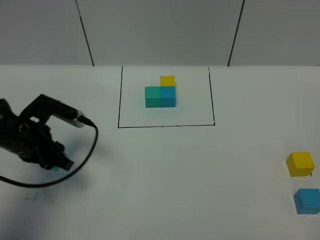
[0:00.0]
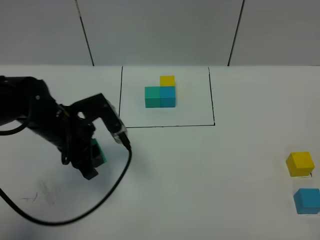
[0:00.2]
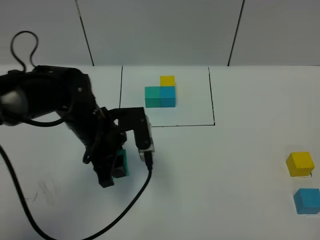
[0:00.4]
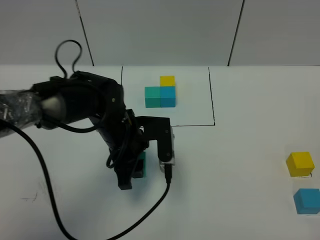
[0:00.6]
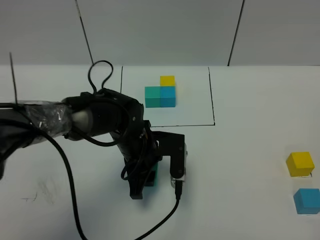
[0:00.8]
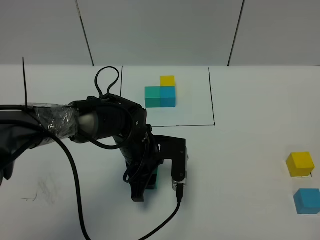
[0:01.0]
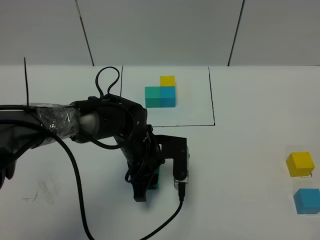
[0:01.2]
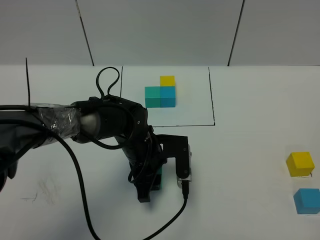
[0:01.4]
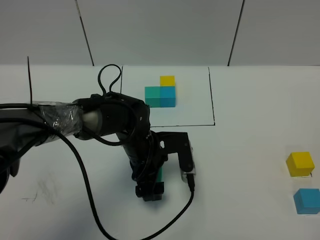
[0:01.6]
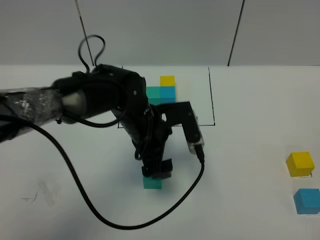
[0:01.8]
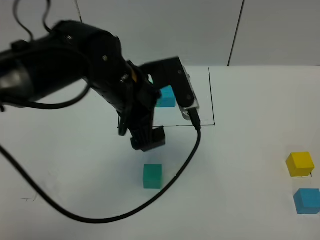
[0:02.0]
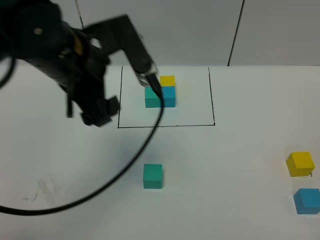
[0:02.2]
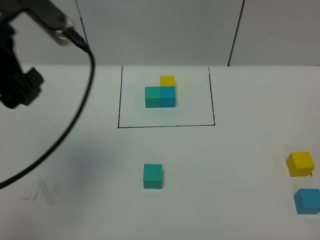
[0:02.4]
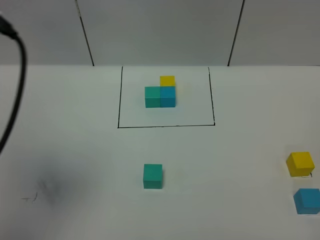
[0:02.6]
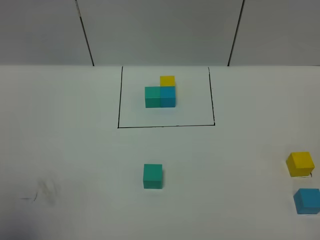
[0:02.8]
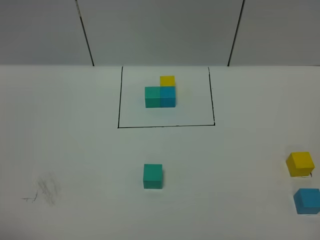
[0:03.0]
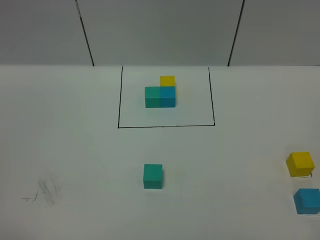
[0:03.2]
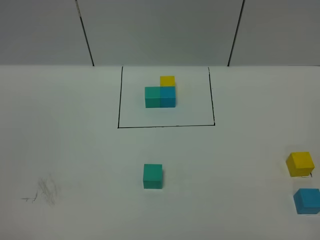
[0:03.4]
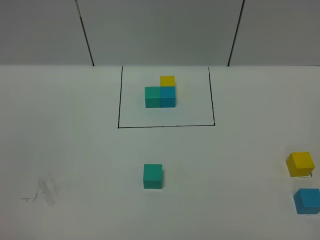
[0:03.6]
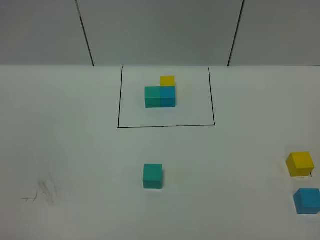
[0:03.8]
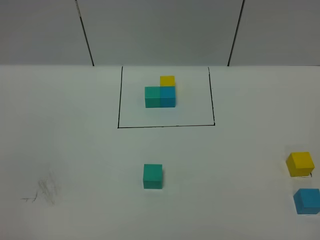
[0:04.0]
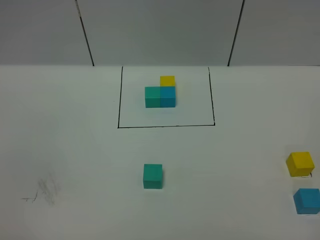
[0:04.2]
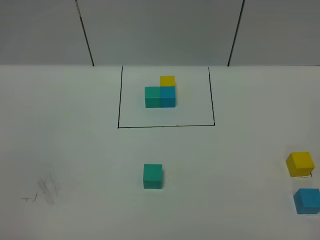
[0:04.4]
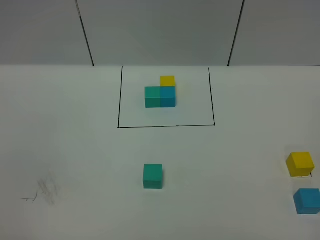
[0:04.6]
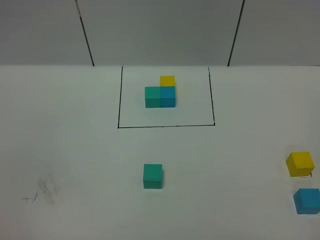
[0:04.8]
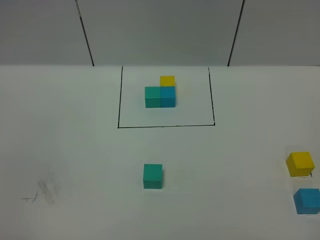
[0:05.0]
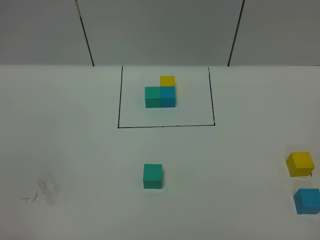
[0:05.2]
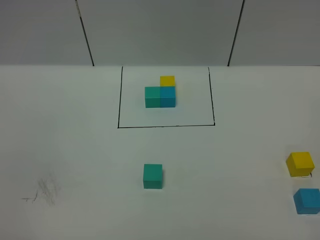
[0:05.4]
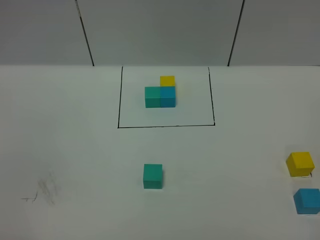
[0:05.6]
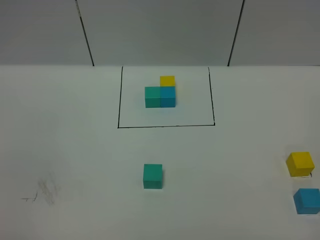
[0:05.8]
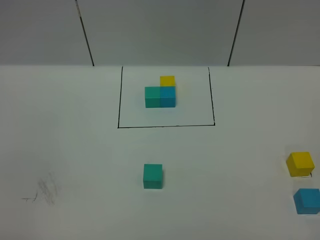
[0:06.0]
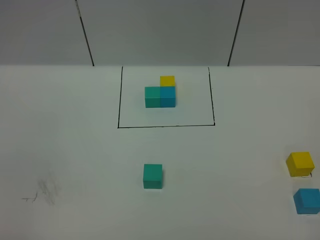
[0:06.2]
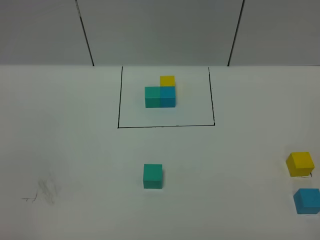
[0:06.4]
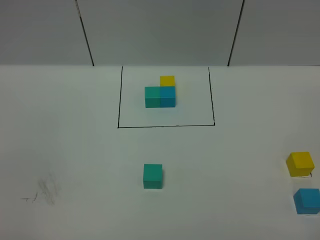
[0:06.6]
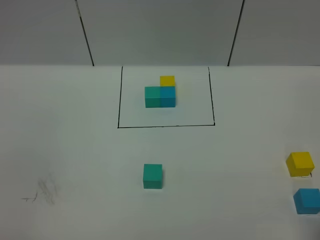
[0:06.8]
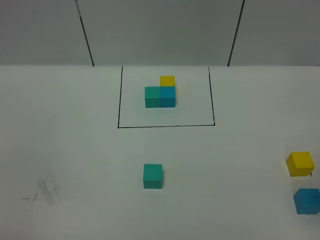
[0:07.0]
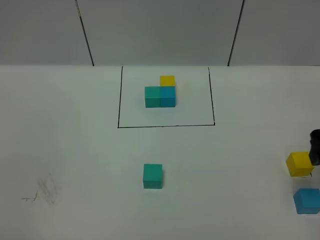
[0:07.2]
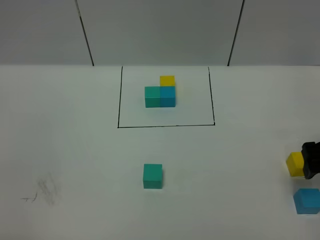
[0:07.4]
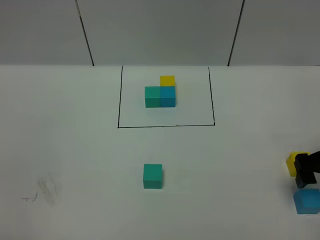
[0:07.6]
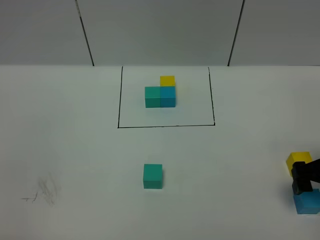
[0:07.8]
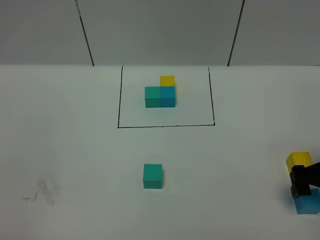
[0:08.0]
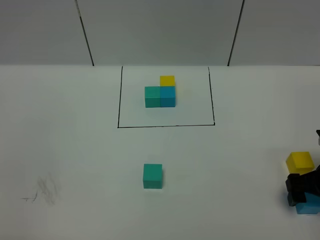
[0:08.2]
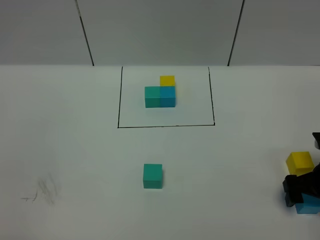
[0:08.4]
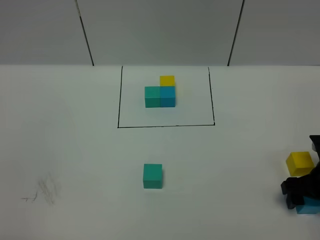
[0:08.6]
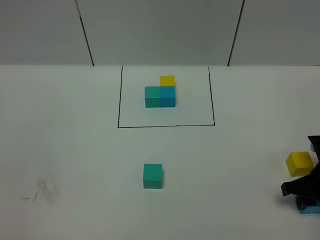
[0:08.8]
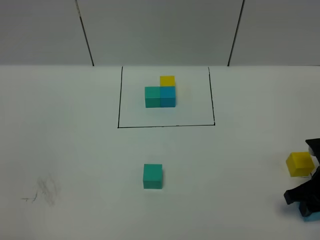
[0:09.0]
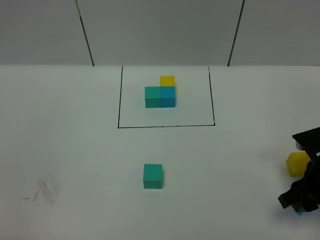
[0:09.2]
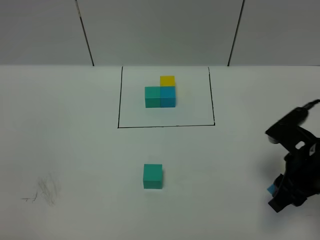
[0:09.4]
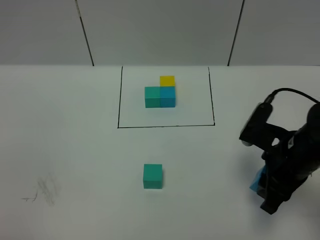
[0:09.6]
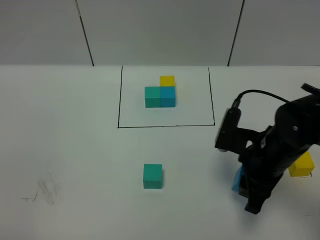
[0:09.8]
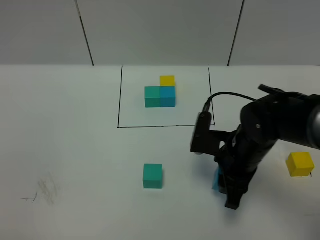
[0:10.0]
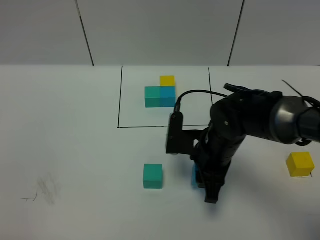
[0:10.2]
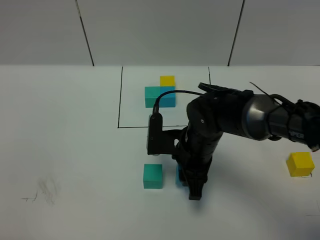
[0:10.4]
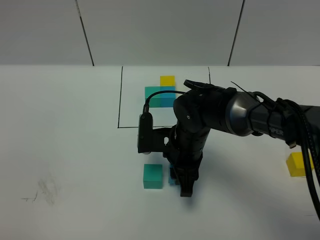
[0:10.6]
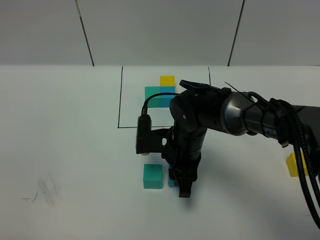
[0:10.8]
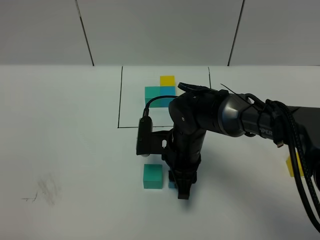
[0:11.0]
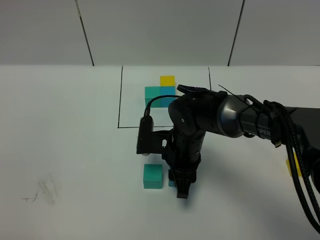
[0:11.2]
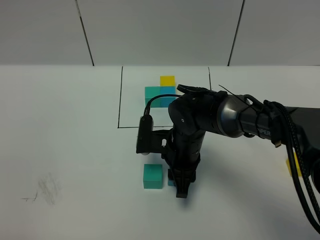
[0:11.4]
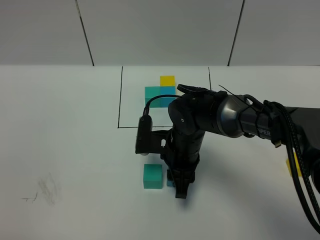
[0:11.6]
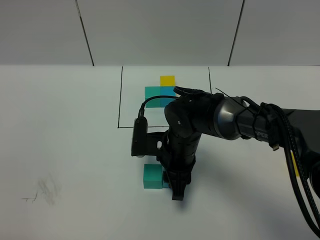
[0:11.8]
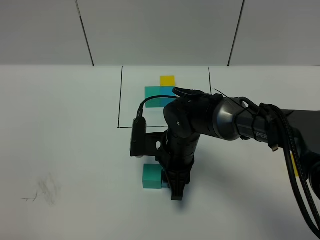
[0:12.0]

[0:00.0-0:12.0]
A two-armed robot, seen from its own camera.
Task of the whole recording: According to the building block template in front, assemble the scattered blocks together.
0:00.0 to 0:01.6: The left gripper moves to the right, about 20 cm, and opens.
0:01.6 to 0:03.0: The left gripper is displaced upward, backward and to the left by approximately 50 cm.
0:06.0 to 0:07.6: The right gripper moves forward, about 25 cm, and opens up.
0:07.6 to 0:09.0: The right gripper heads downward, covering approximately 5 cm, and closes up.
0:09.0 to 0:10.4: The right gripper shifts roughly 25 cm to the left.
0:10.4 to 0:12.0: There are only small adjustments of the grippers.

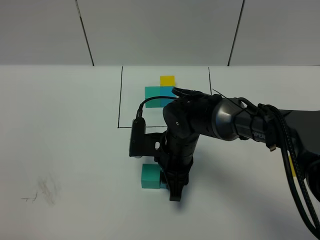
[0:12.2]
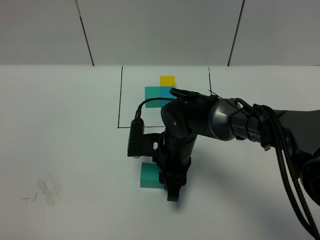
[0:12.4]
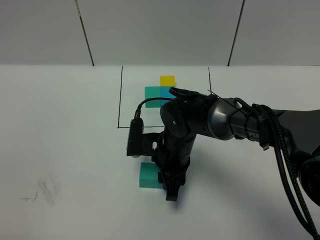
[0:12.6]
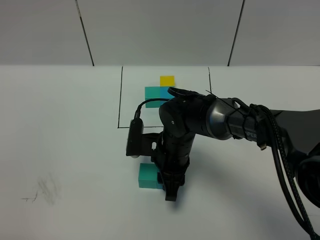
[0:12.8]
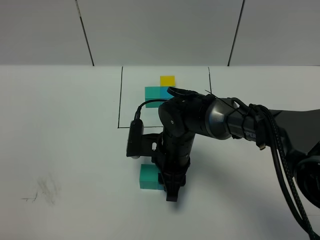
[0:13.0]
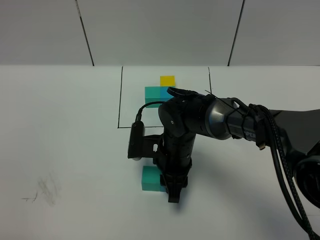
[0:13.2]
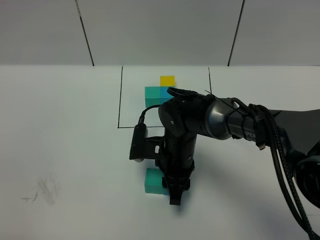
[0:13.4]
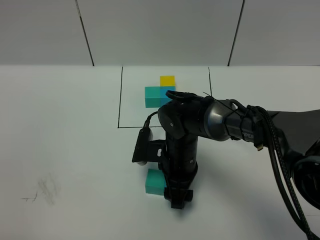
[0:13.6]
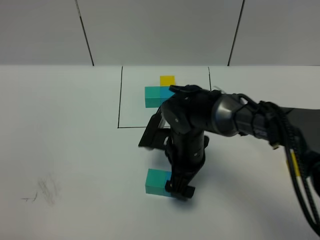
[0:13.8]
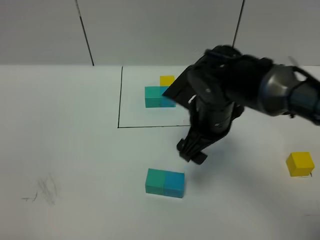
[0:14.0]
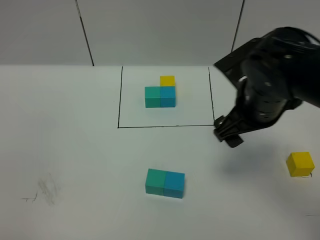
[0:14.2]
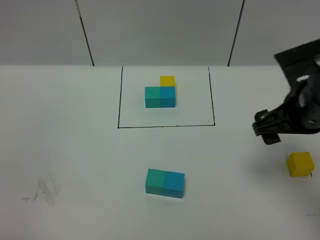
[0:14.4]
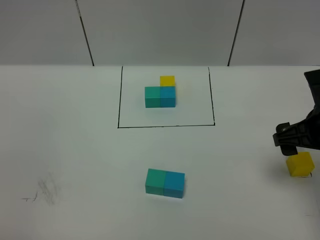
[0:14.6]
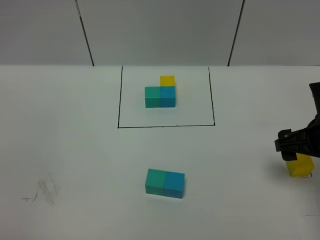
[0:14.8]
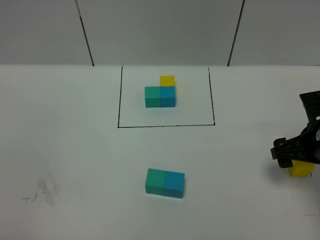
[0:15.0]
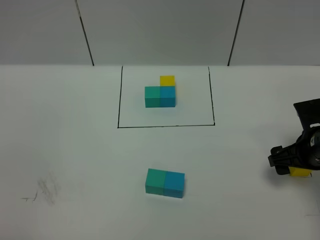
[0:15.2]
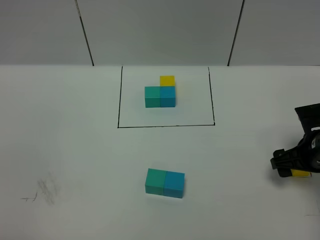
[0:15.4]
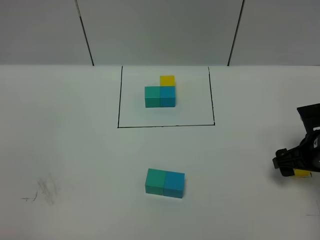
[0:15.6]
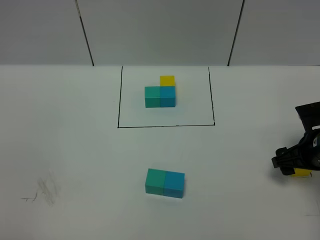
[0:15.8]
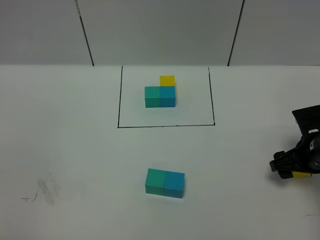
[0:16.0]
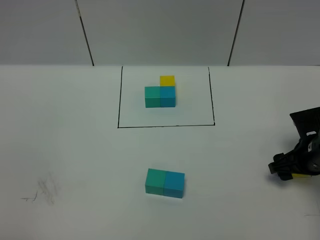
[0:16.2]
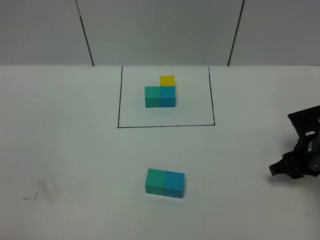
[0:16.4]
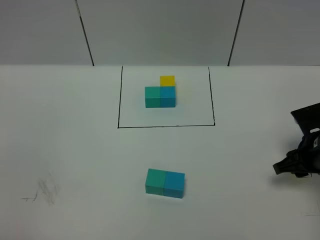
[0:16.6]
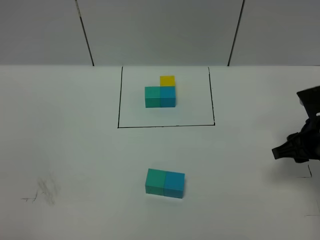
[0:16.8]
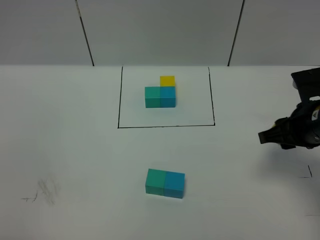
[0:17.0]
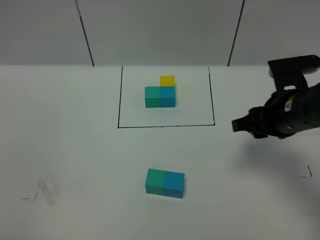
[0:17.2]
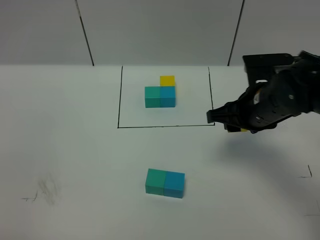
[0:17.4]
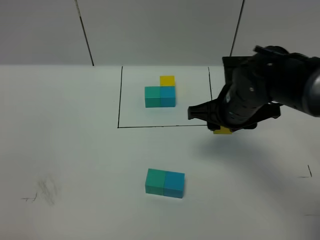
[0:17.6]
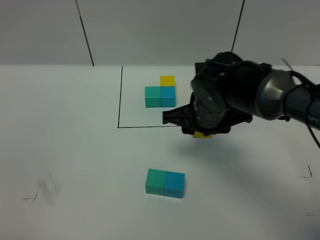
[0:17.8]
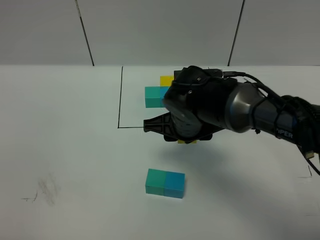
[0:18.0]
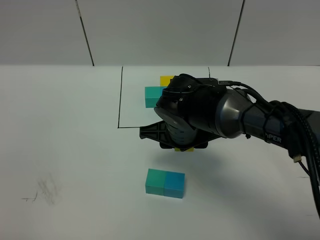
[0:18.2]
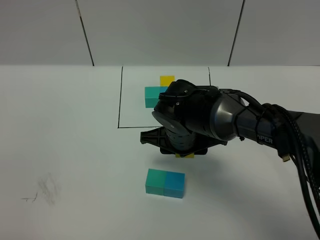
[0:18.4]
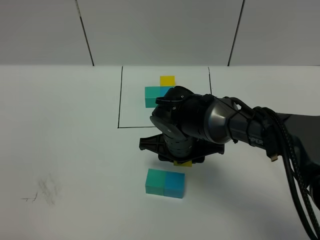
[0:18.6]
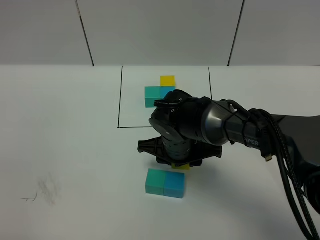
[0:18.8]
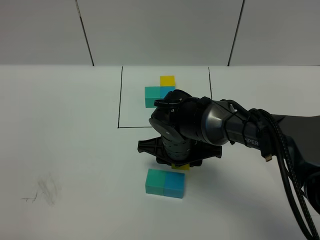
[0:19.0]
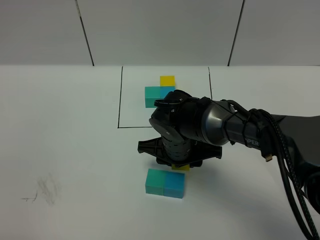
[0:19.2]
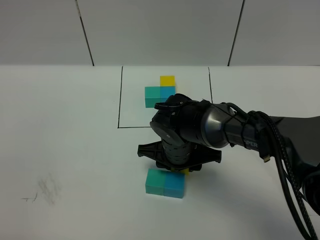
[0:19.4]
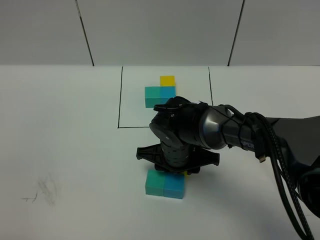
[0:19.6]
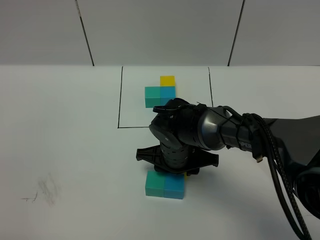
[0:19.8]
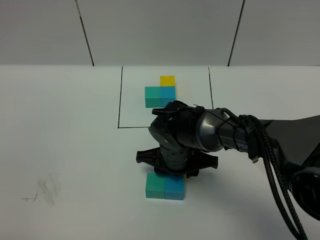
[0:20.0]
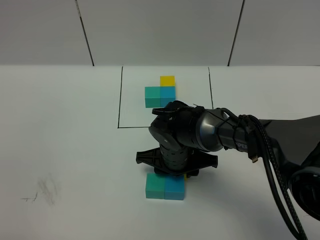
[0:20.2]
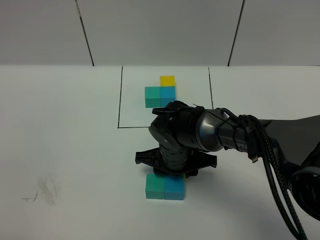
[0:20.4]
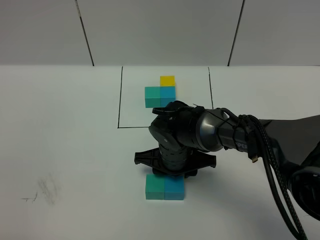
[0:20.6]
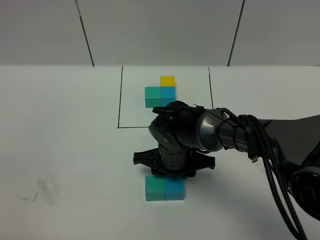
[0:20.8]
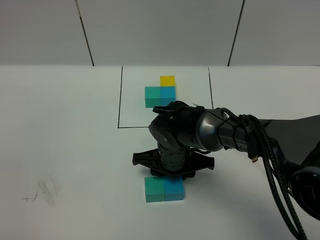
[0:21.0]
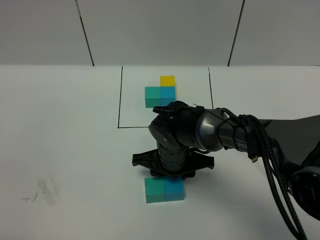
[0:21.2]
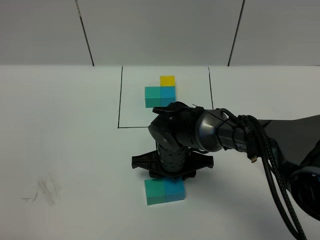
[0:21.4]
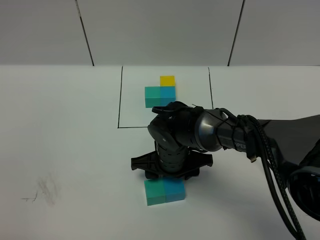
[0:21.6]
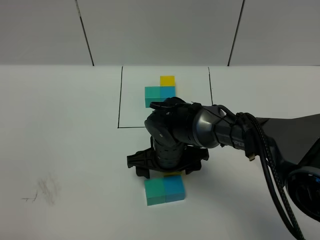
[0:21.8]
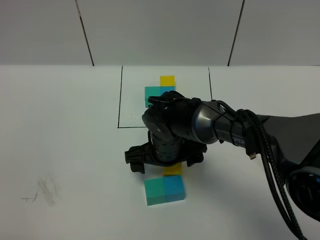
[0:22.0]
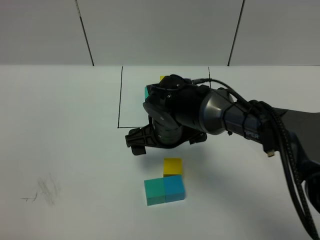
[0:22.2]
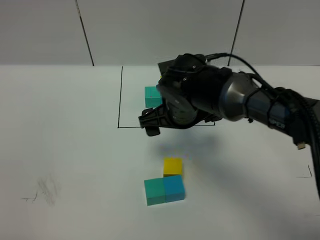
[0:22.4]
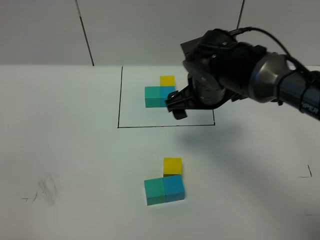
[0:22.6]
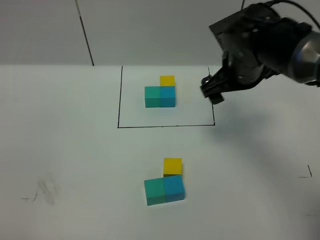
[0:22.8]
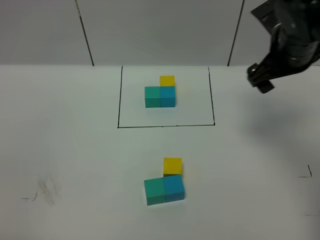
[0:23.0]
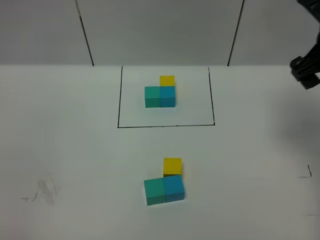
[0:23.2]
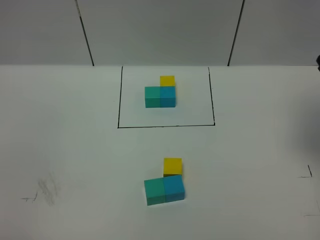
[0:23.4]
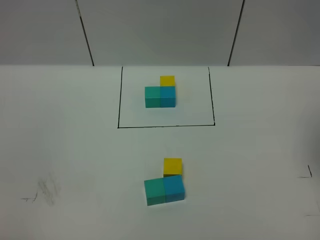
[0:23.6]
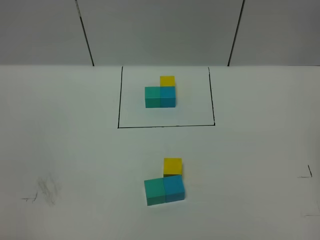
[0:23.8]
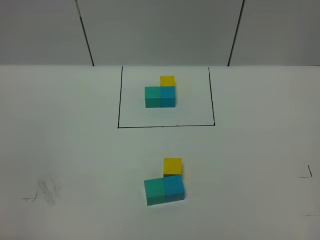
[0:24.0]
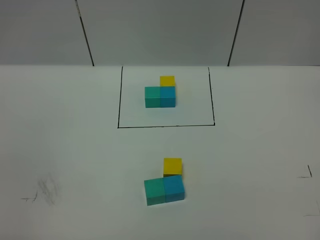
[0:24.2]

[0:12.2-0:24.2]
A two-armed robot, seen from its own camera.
Task of the whole recording: According to the building block template in front, assemble the scattered blocks together.
Step, 0:13.8 to 0:21.8: Put the yellow cube on the behind of the blue cube.
0:12.2 to 0:13.8: The right gripper opens.
0:13.8 to 0:15.2: The right gripper heads to the right, covering roughly 25 cm.
0:15.2 to 0:16.6: The right gripper closes its fingers.
0:16.6 to 0:18.2: The right gripper goes roughly 25 cm to the left.
0:18.2 to 0:19.8: The right gripper heads downward, covering some 5 cm.
0:19.8 to 0:21.2: The grippers stay close to where they were, moving slightly.
0:21.2 to 0:22.6: The right gripper heads upward, to the right and forward, covering about 15 cm, and opens its fingers.
0:22.6 to 0:24.2: The right gripper goes some 40 cm backward, to the right and upward, and closes up.
